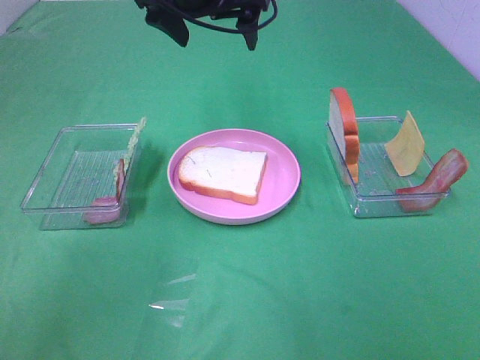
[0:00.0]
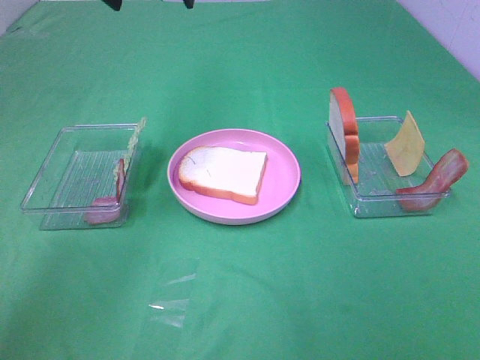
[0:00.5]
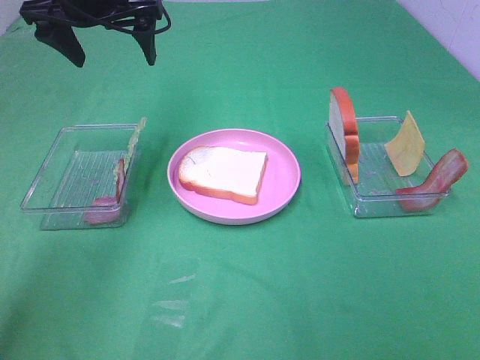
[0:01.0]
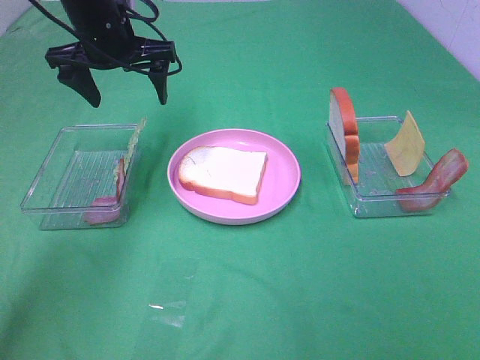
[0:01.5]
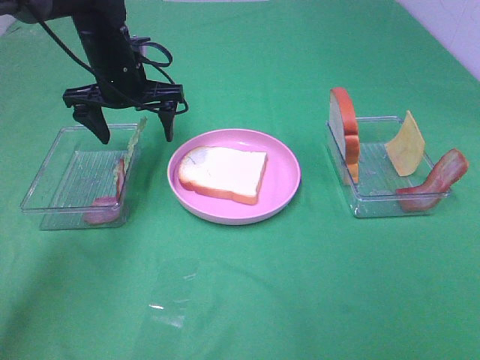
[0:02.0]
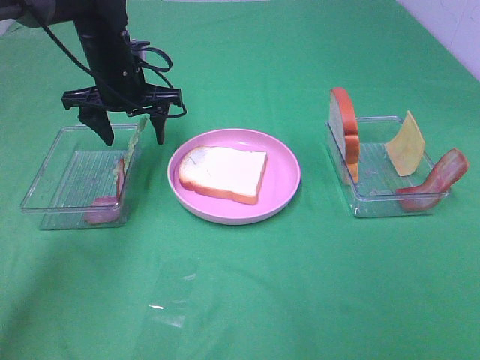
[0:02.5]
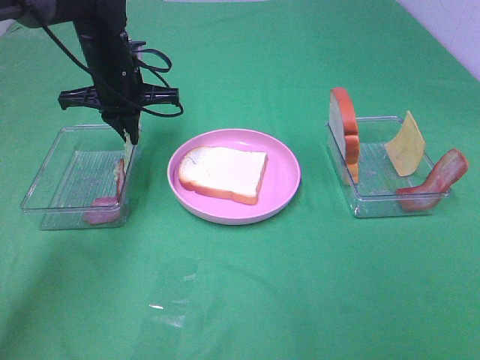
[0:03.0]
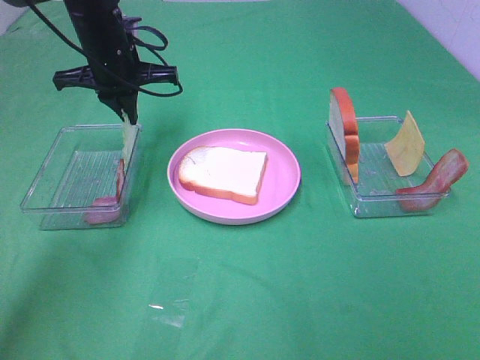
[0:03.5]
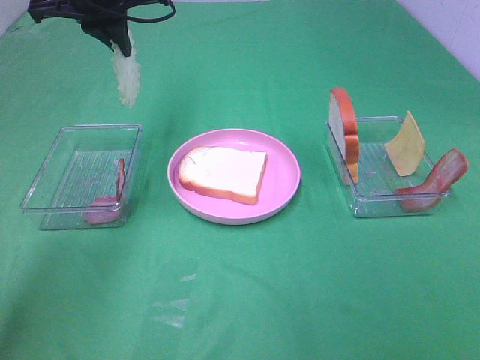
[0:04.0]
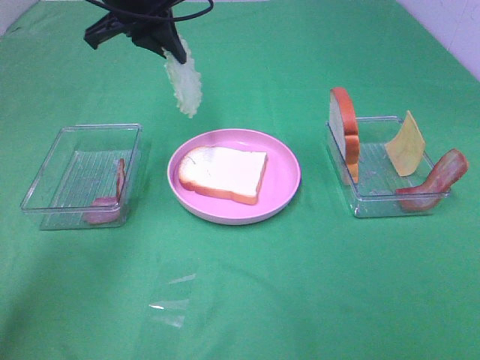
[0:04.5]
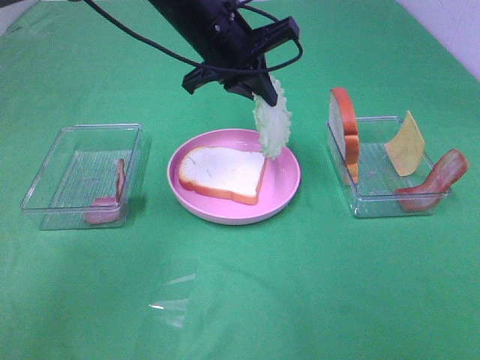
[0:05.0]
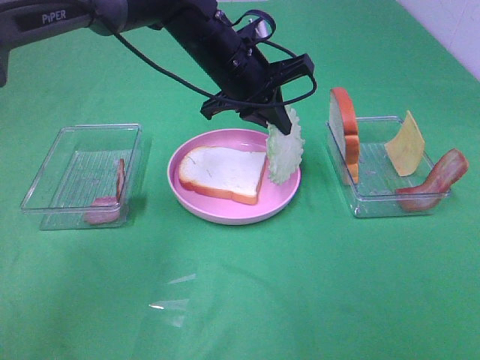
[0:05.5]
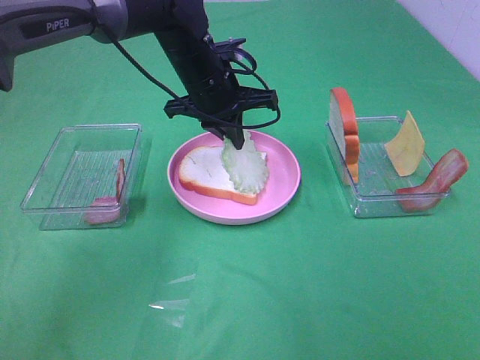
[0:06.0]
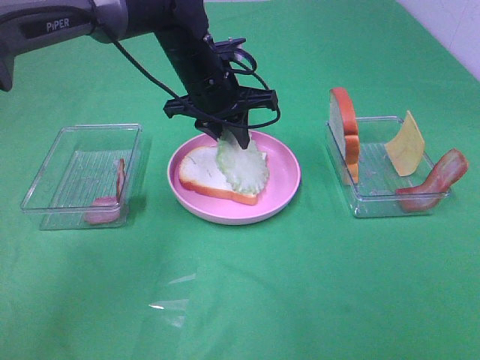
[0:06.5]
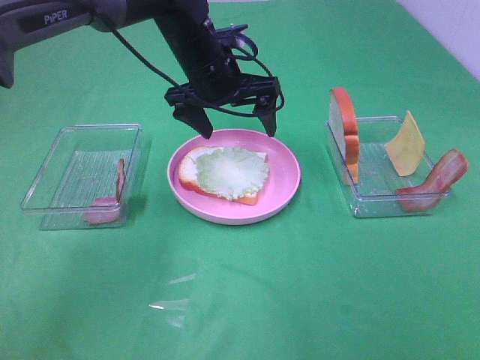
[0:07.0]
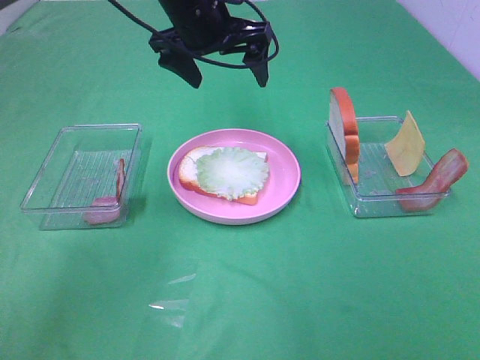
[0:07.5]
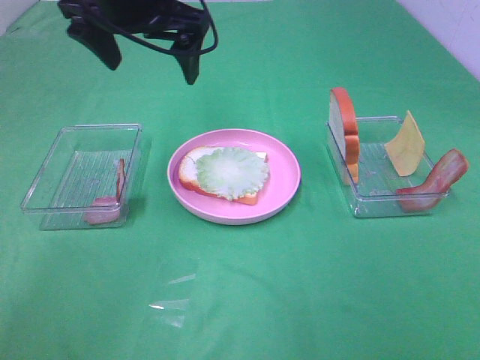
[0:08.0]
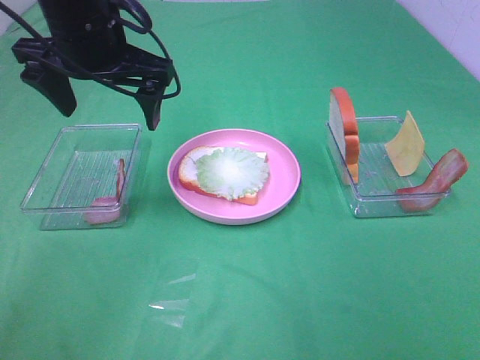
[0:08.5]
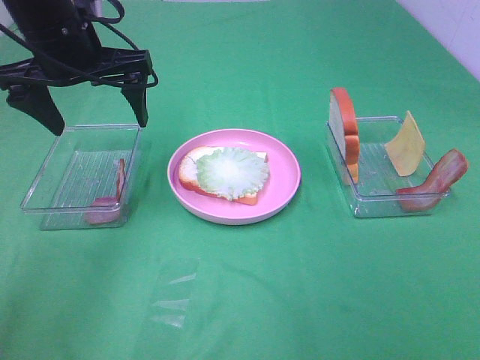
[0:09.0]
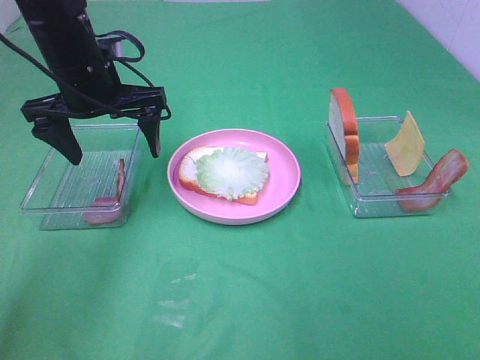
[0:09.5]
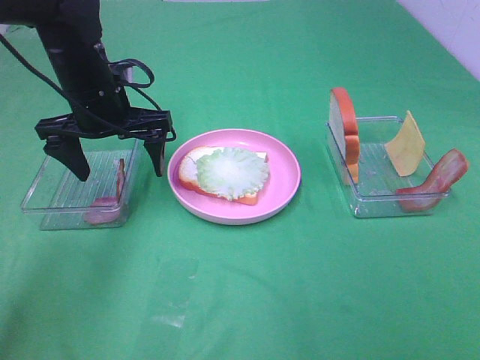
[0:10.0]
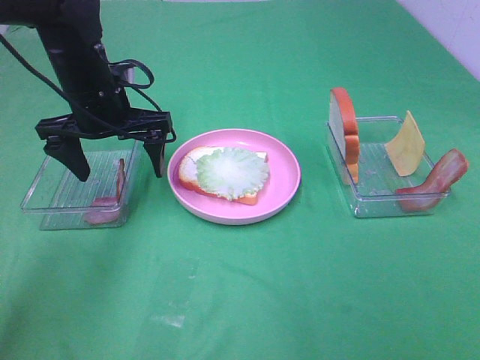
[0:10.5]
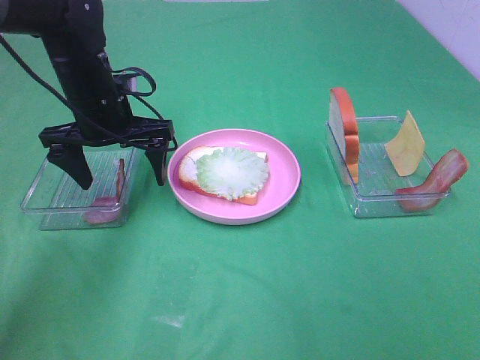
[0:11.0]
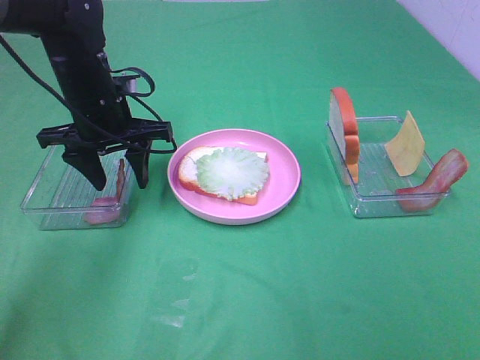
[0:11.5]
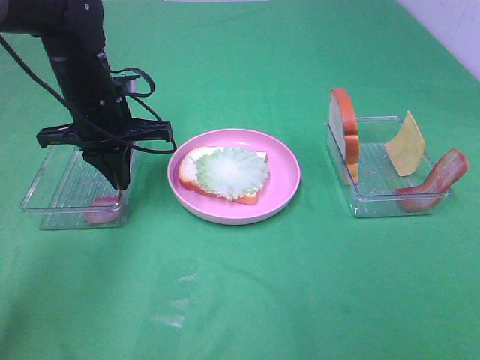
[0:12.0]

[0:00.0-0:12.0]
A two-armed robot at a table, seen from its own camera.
Task of the whole recording: Make sandwiches.
Step, 0:00.0 to 0:03.0: Left hand:grab the lettuce slice.
Step, 0:03.5 to 0:07.0: Left hand:place the lettuce slice on the bread slice.
0:00.0 to 0:02.0: The left gripper travels downward and to the left by some 15 cm.
0:02.0 to 0:04.0: The left gripper shifts roughly 10 cm upward, and closes up.
0:04.0 to 0:06.0: The left gripper moves to the right and downward, roughly 15 cm.
0:06.0 to 0:08.0: The left gripper shifts roughly 15 cm upward and to the left, and opens its fingers.
0:08.0 to 0:10.0: The left gripper travels downward and to the left by approximately 15 cm.
0:10.0 to 0:12.0: The left gripper closes its fingers.

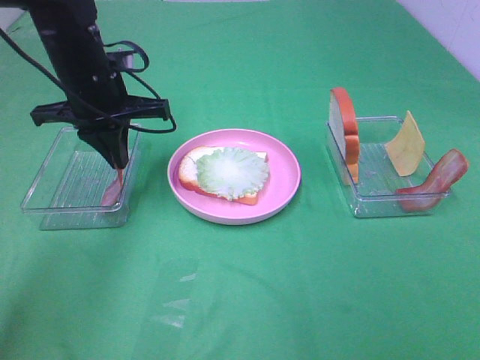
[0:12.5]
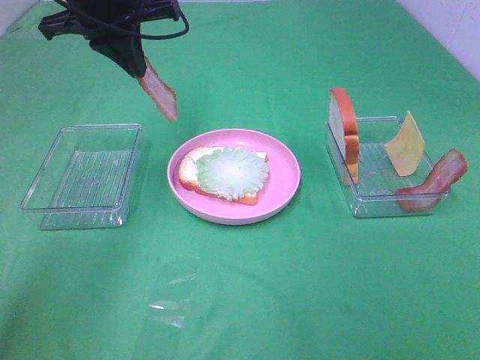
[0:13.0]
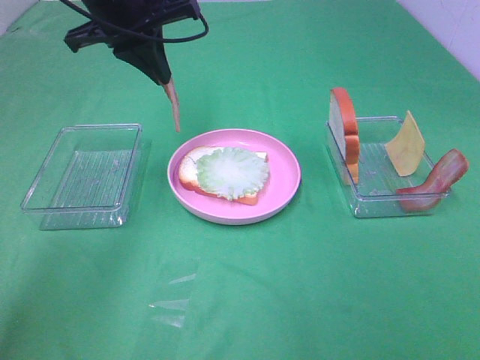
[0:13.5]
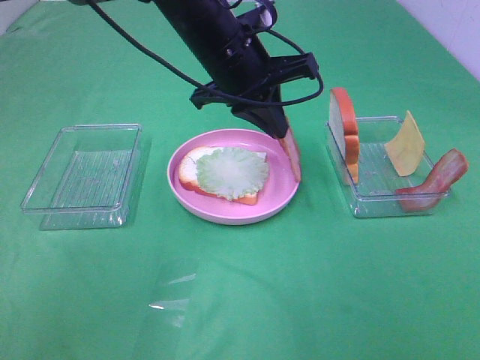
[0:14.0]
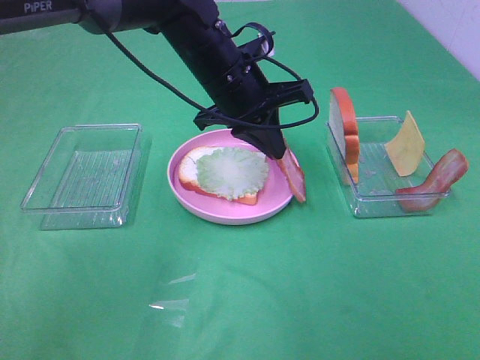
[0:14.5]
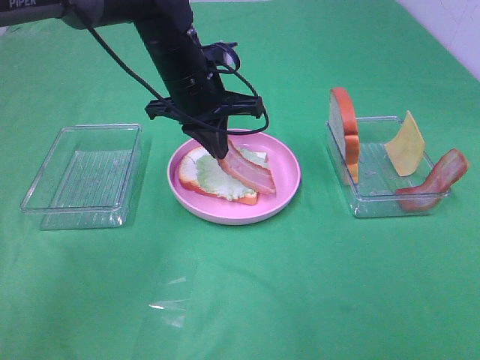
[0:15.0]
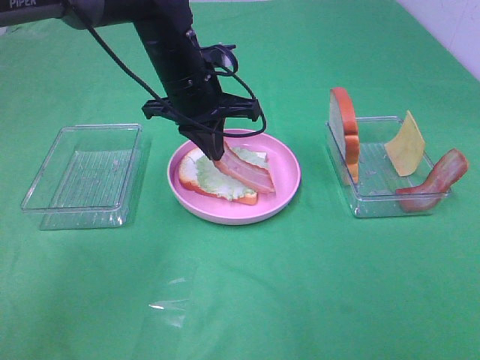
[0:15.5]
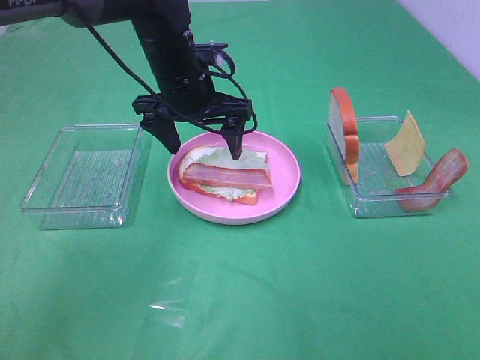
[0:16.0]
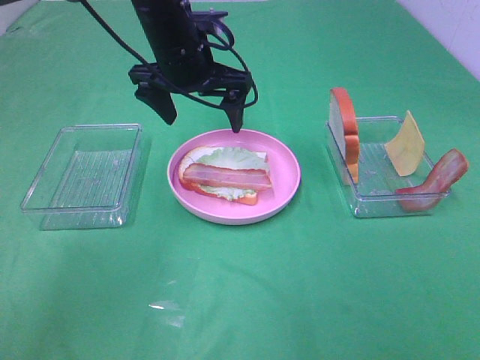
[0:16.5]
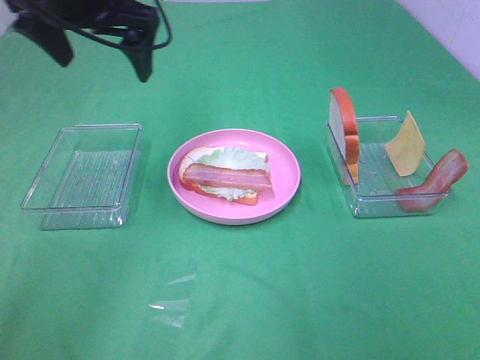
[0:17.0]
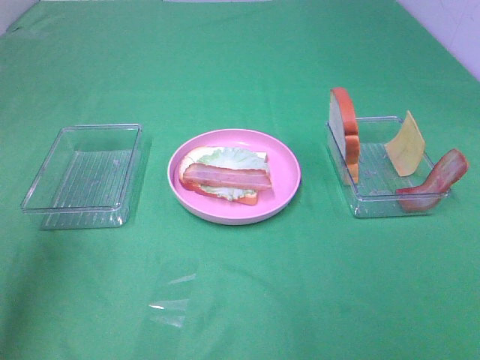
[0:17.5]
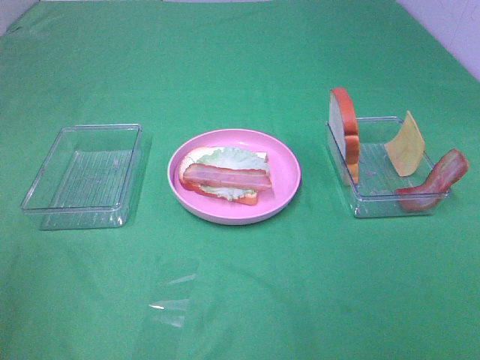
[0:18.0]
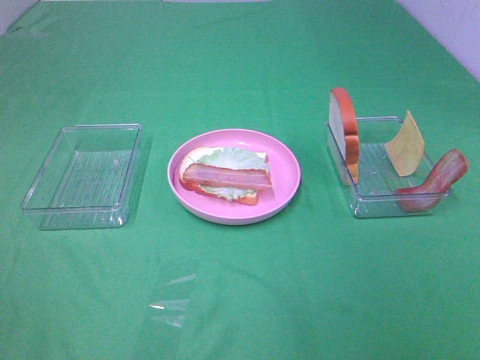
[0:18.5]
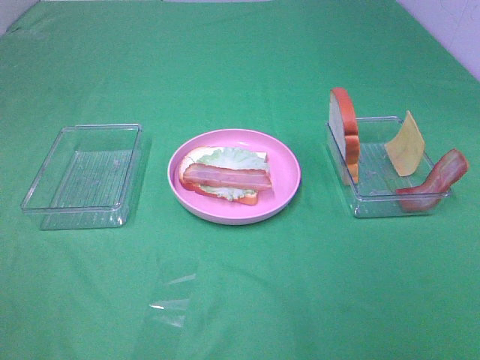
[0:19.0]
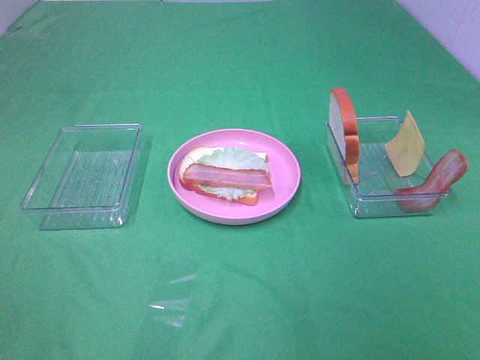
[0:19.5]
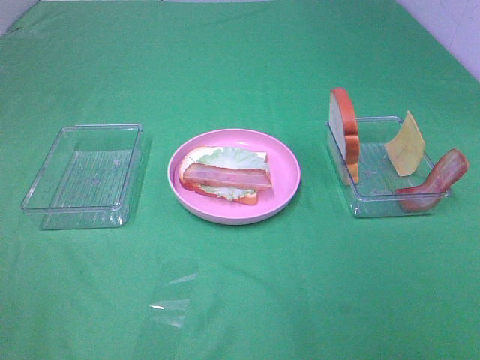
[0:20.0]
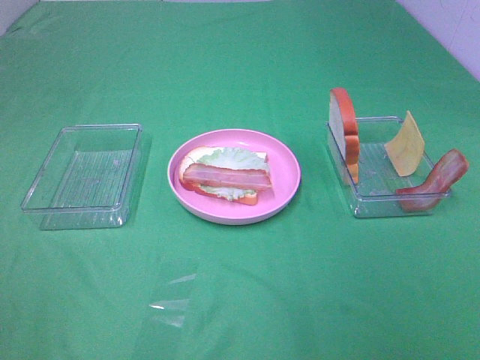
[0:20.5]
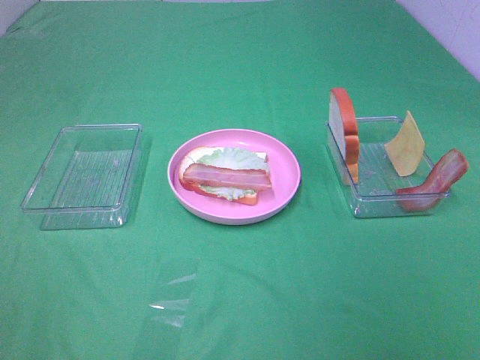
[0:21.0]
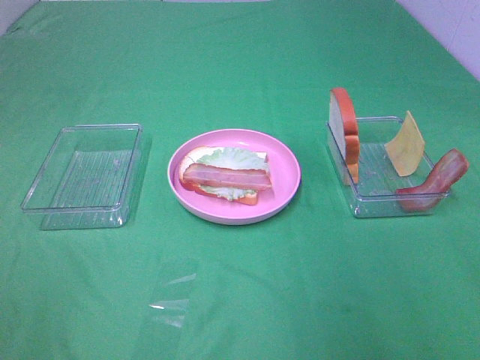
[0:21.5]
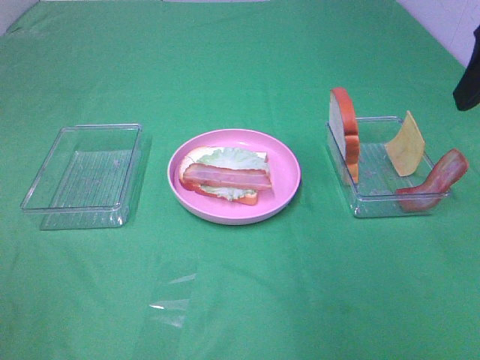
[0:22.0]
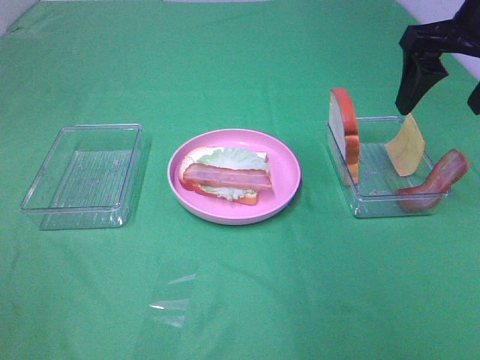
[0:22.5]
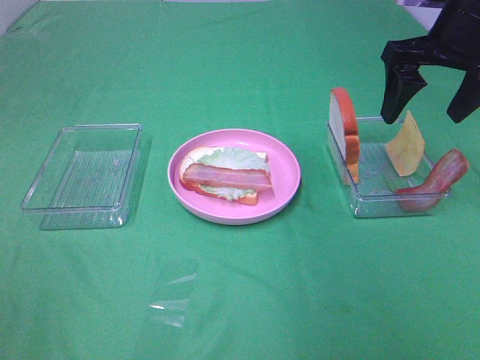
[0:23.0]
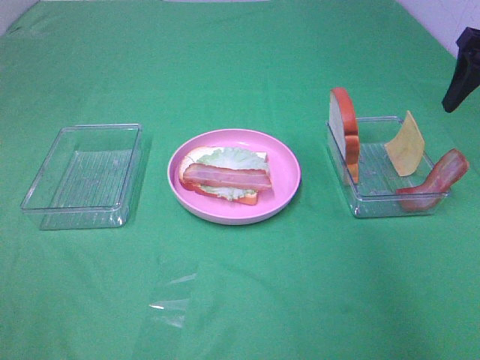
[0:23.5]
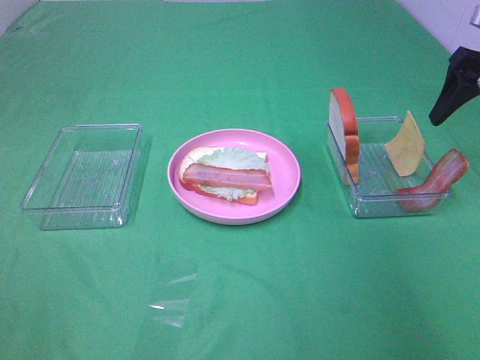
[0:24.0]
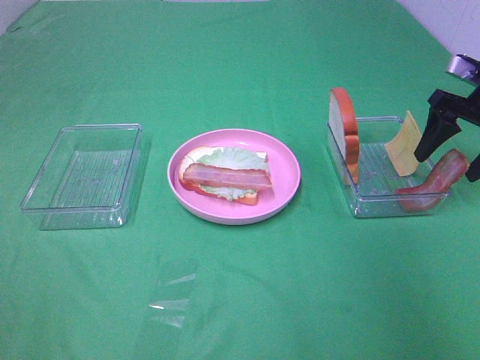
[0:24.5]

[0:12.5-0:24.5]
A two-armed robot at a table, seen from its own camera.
Task of the whole recording: Make sandwiches.
Step, 0:12.5 to 0:16.0: Left hand:place bacon on lettuce slice.
0:12.5 to 0:14.5: The left gripper is displaced to the right by approximately 15 cm.
0:14.5 to 0:16.5: The left gripper changes place by approximately 5 cm, and opens its fingers.
0:16.5 to 0:18.5: The left gripper moves backward and to the left, approximately 50 cm.
0:20.5 to 0:22.5: The right gripper is displaced forward by approximately 35 cm.
0:22.5 to 0:24.5: The right gripper heads downward, to the right and forward, covering roughly 20 cm.

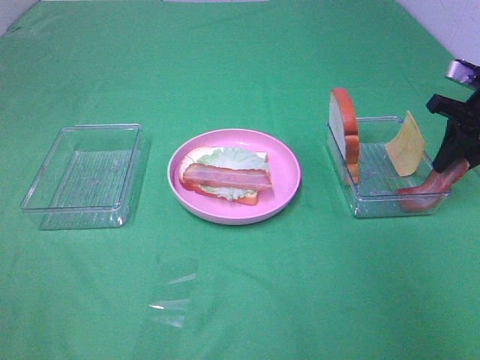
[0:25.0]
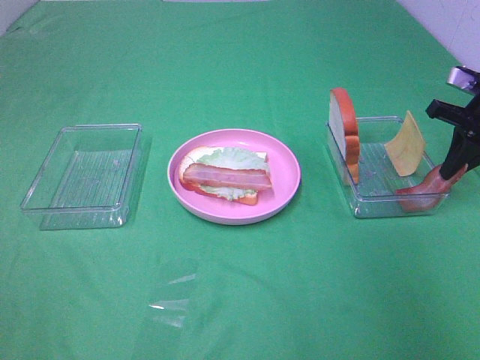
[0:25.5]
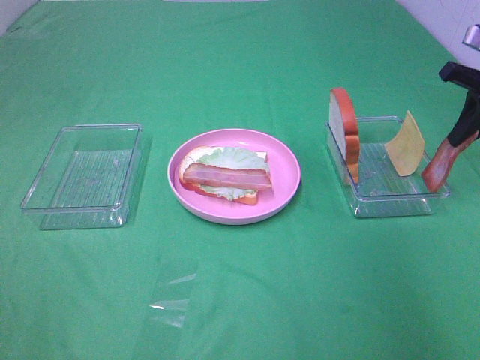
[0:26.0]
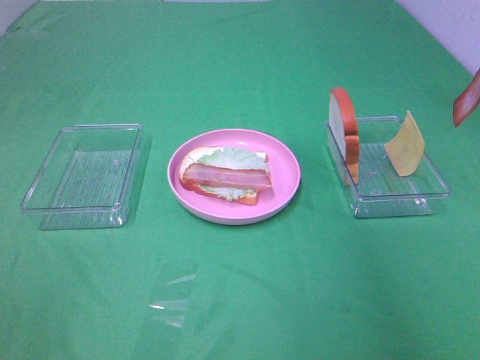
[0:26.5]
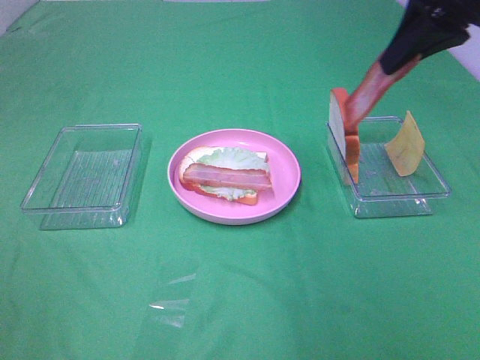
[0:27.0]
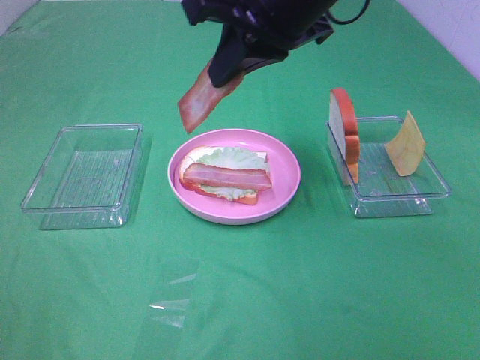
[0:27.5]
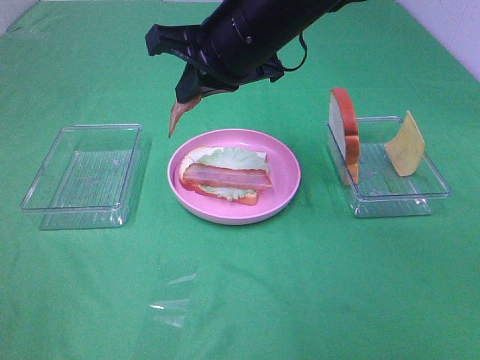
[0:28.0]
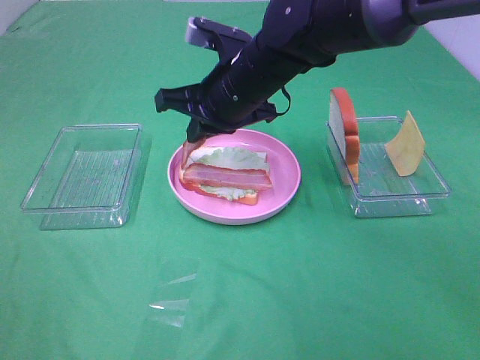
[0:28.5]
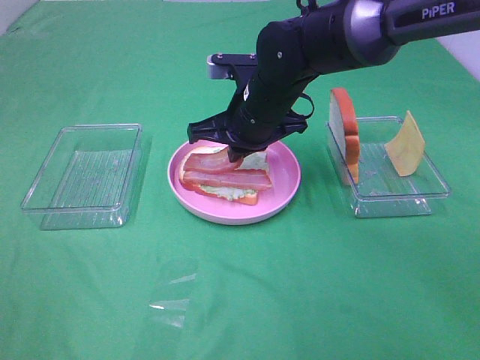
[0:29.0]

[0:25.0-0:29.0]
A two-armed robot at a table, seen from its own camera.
Task of the whole recording: Make sandwiches.
0:25.0 to 0:27.0: The right gripper moves upward and to the left, some 20 cm.
0:27.0 to 0:29.0: The right gripper shifts some 25 cm downward and to the left.
